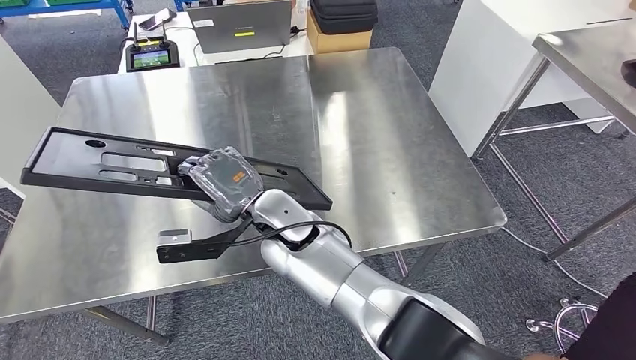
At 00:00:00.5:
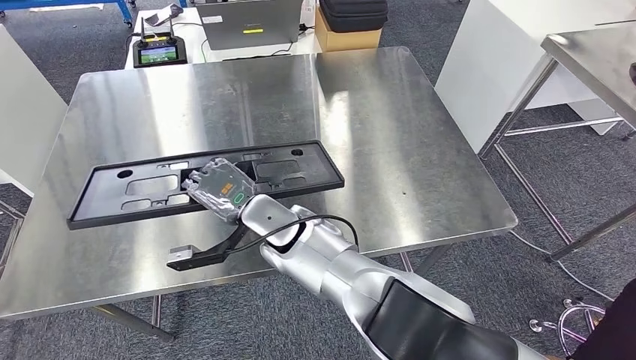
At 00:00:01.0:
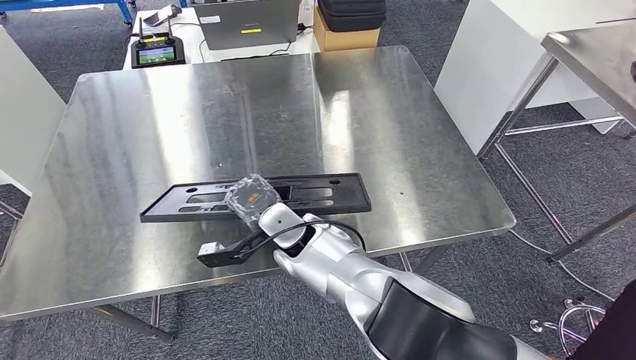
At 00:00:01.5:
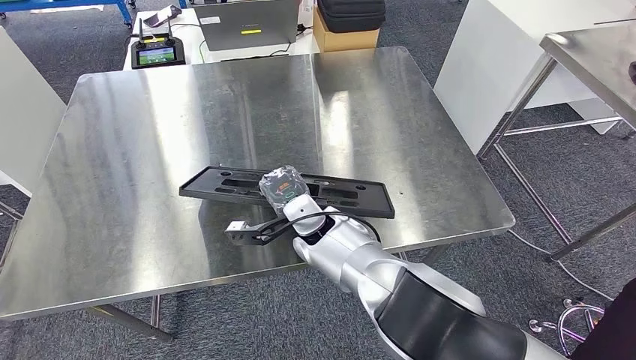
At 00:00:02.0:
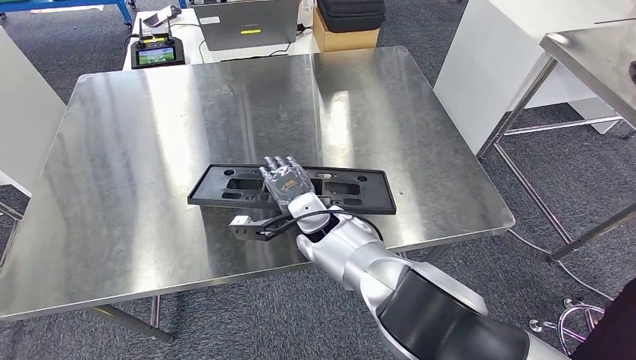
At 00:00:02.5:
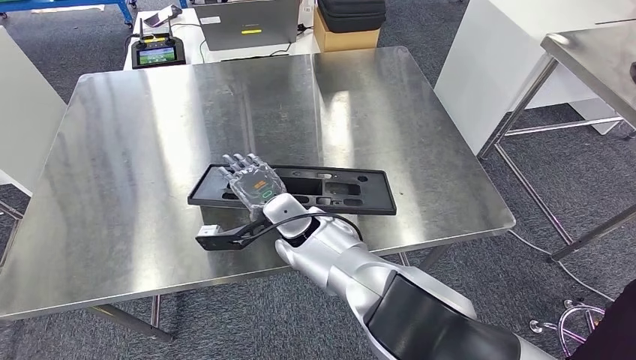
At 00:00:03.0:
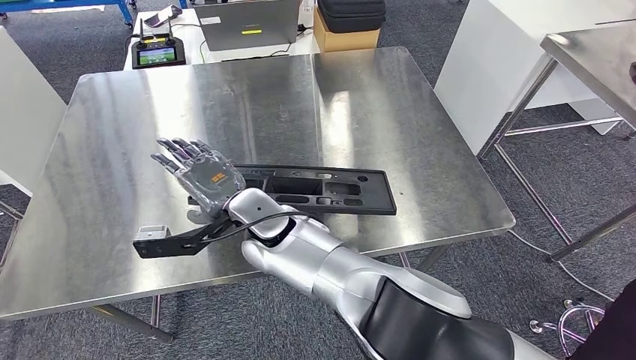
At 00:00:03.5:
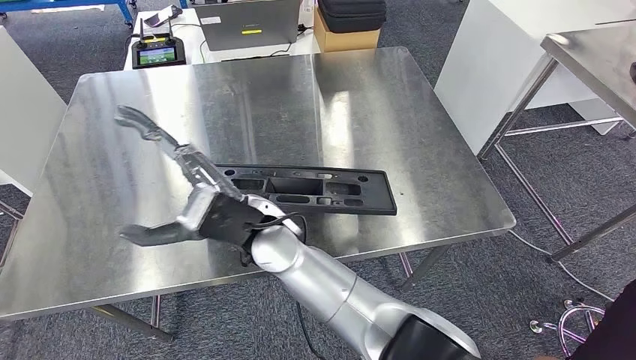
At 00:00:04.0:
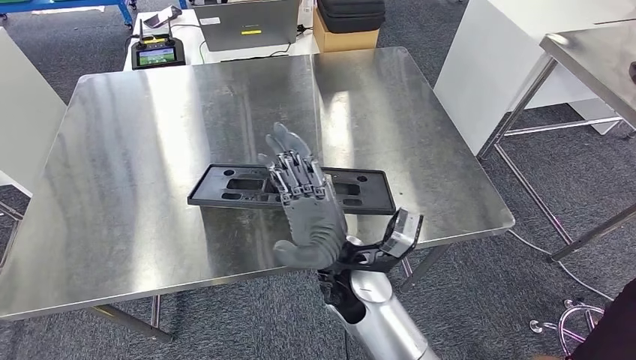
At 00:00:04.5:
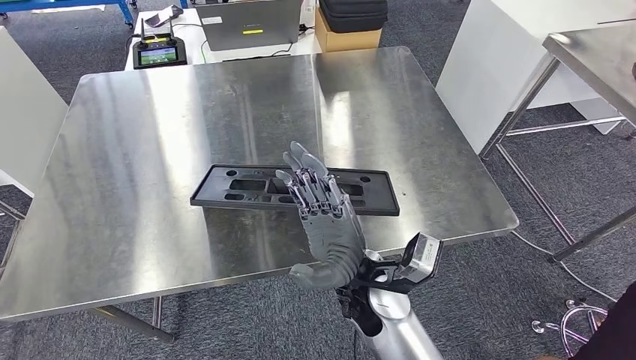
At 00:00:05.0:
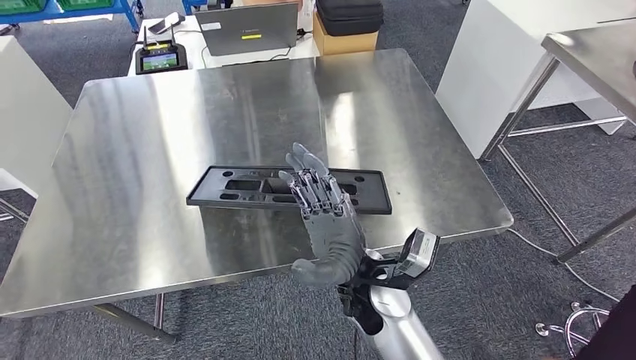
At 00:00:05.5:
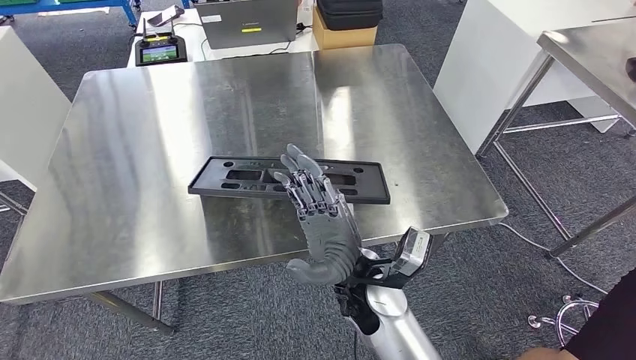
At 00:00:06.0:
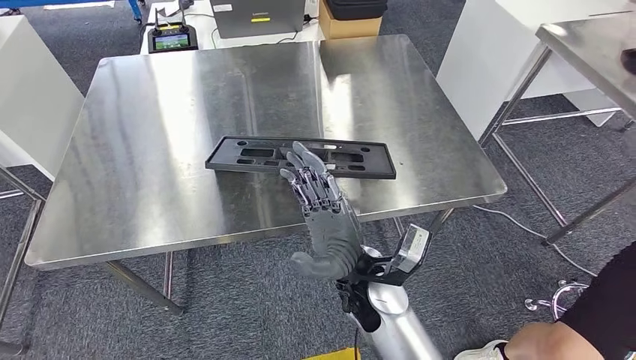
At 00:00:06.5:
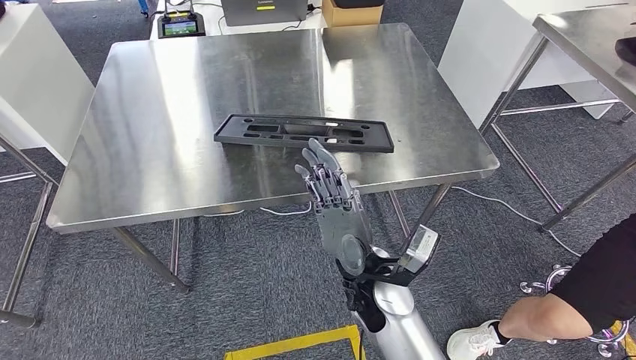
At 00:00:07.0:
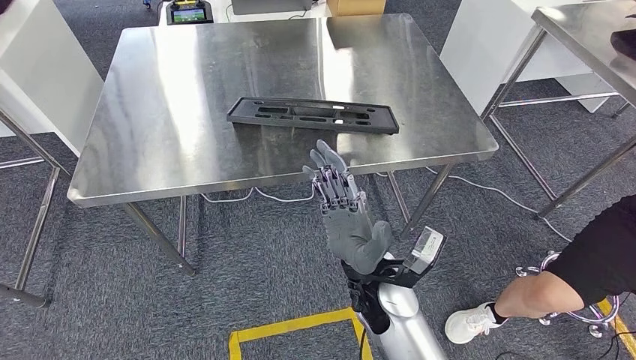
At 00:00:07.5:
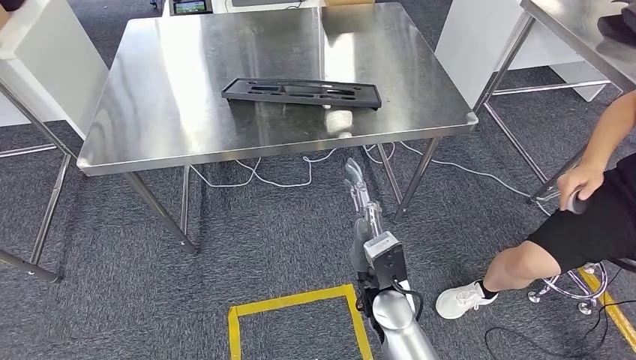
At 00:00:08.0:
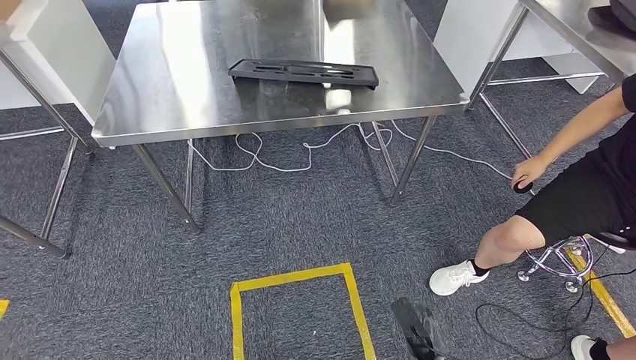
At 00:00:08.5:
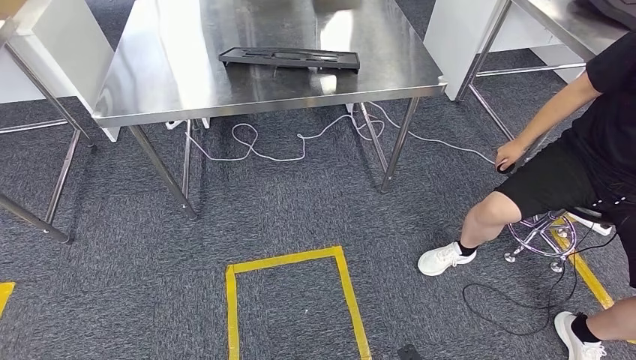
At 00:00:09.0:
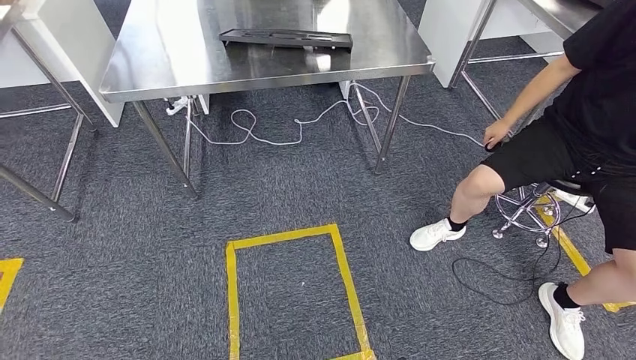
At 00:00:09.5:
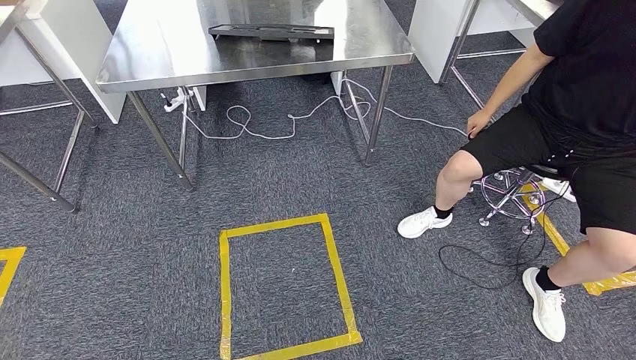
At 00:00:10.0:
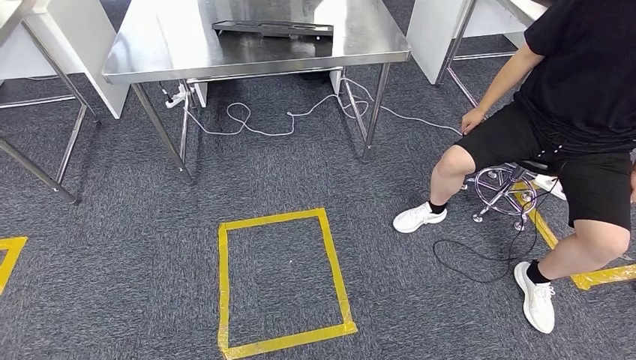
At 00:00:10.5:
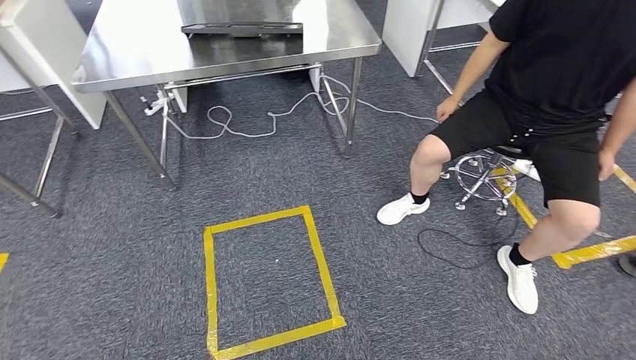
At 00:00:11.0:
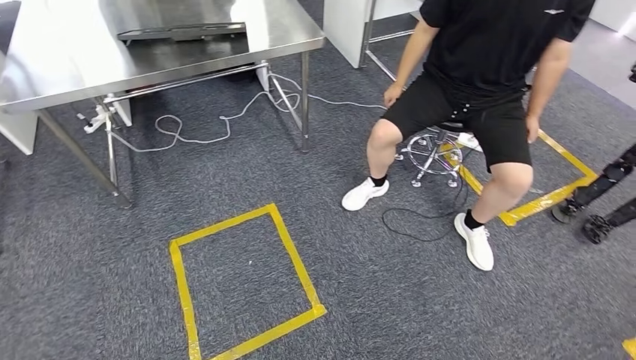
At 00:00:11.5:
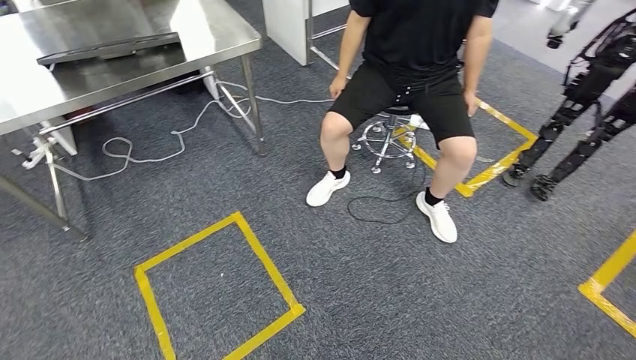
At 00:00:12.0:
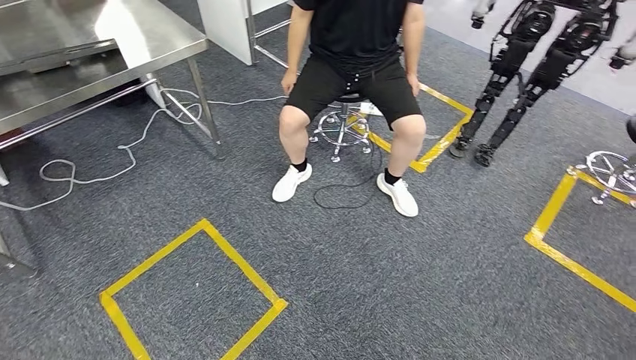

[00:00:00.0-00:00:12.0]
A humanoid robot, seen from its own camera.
Step, 00:00:00.0 to 00:00:09.0: Insert the large material into the corresponding slot on the workbench.
00:00:02.0 to 00:00:04.0: The right hand heads backward, covering approximately 10 cm.

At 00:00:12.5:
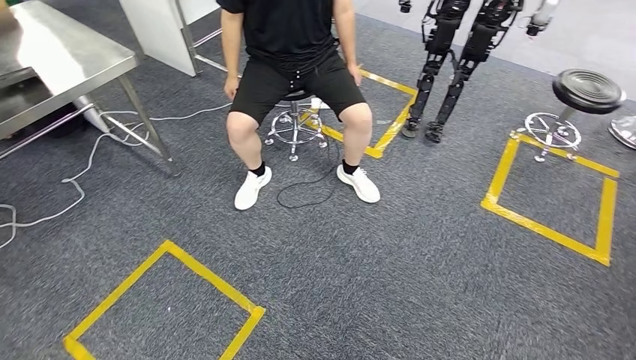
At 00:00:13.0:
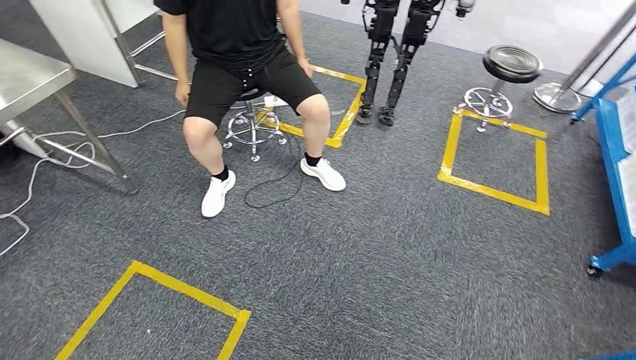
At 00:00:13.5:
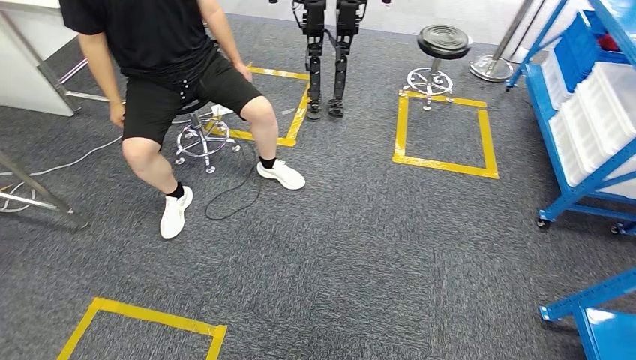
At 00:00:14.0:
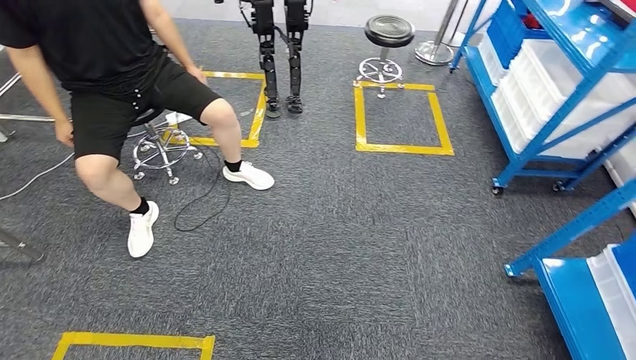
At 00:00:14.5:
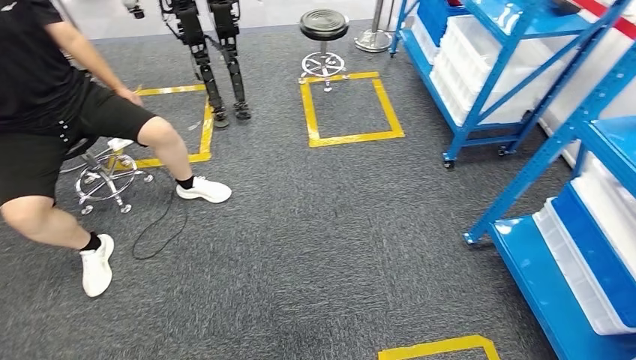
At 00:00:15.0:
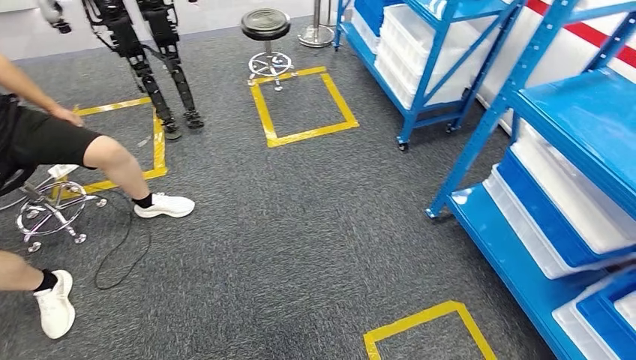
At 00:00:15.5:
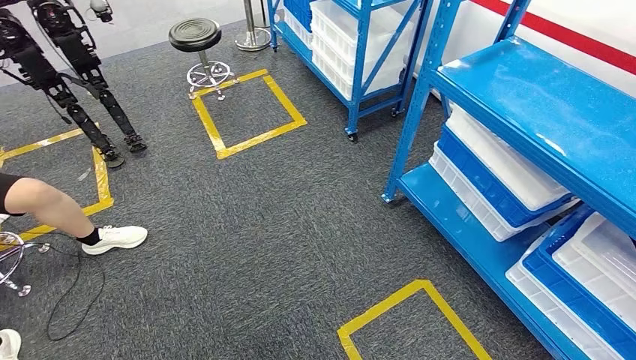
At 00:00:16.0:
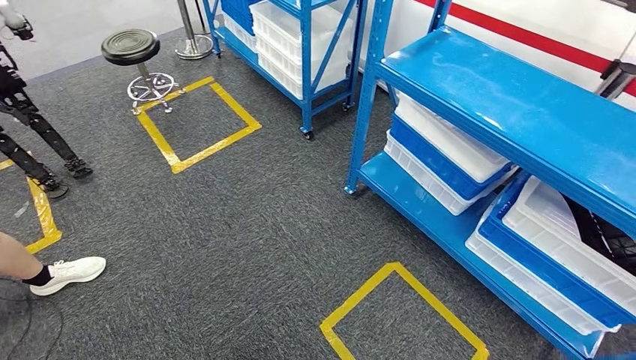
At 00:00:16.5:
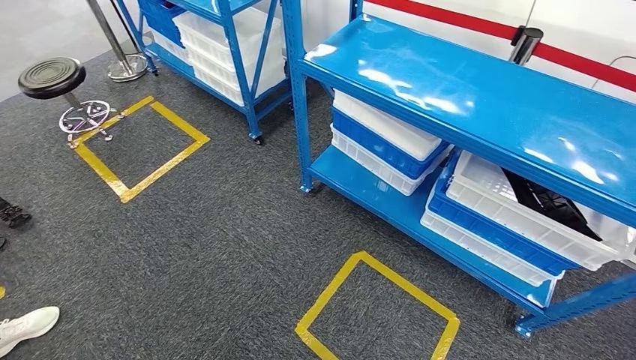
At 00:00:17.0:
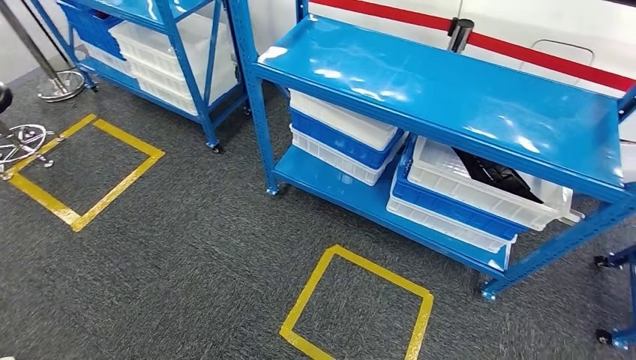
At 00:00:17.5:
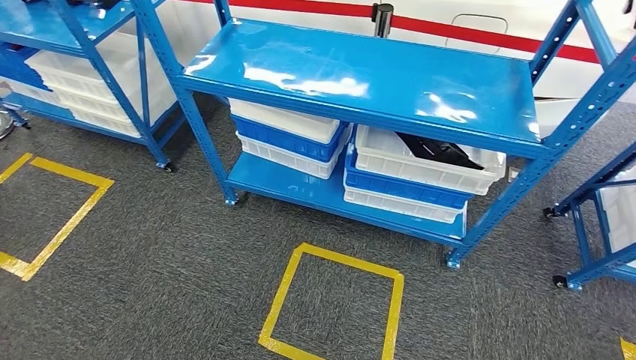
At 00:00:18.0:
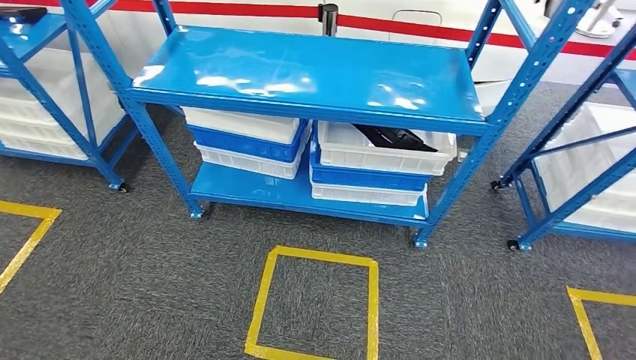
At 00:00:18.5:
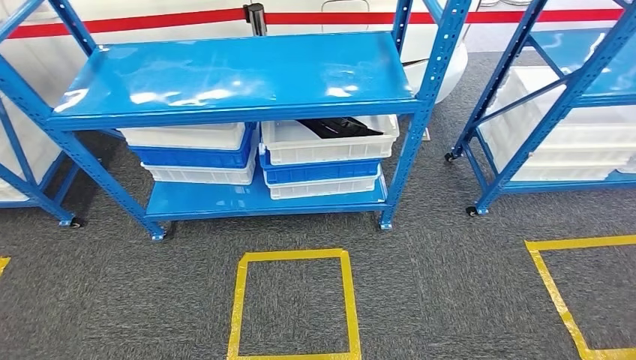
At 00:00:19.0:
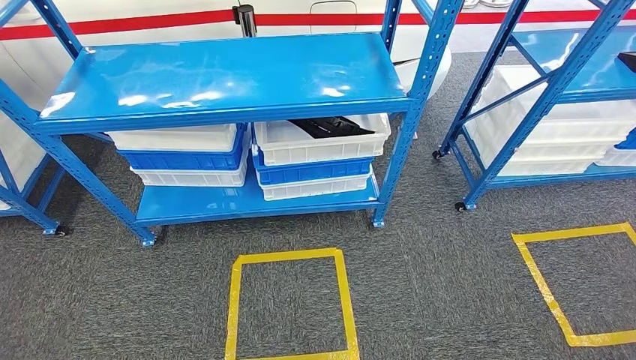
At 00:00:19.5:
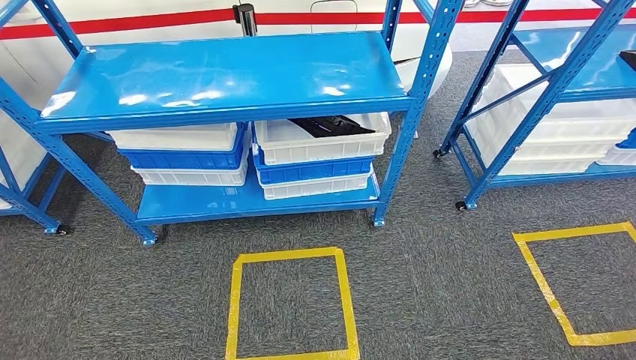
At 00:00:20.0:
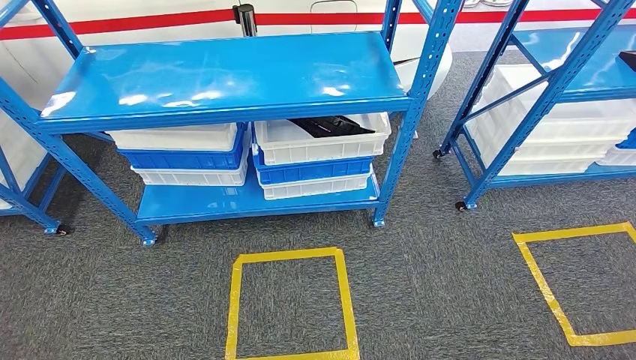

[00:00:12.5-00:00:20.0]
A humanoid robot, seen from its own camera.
Step, 00:00:12.5 to 00:00:20.0: Return to the initial position at the shelf.

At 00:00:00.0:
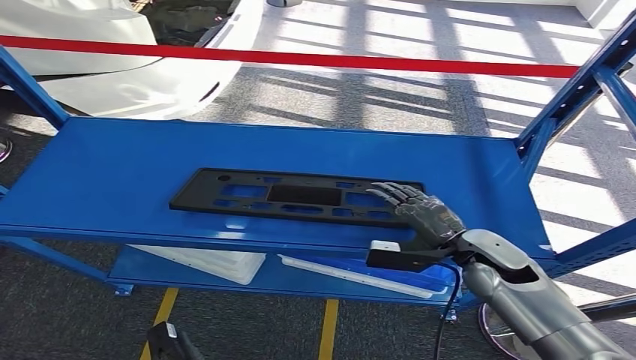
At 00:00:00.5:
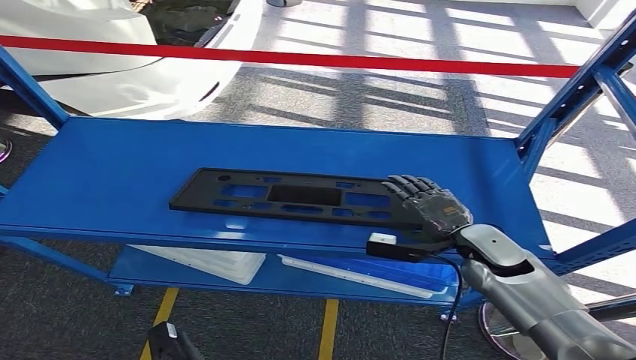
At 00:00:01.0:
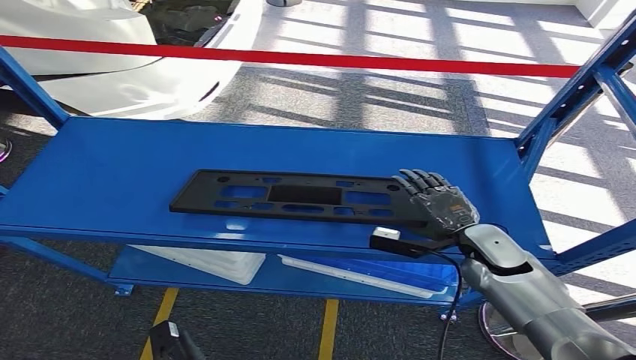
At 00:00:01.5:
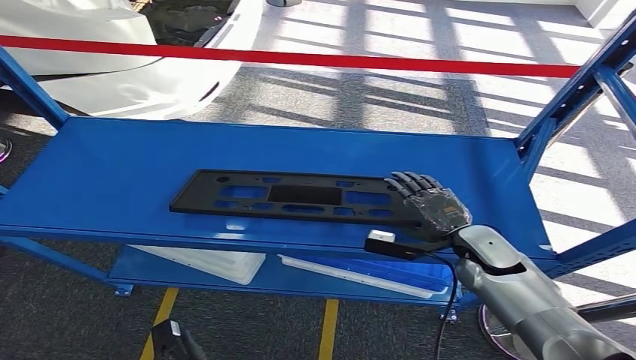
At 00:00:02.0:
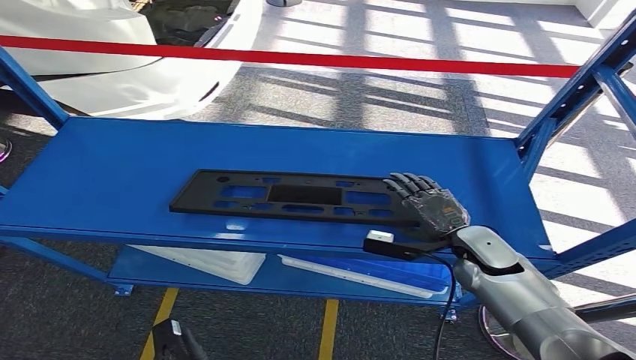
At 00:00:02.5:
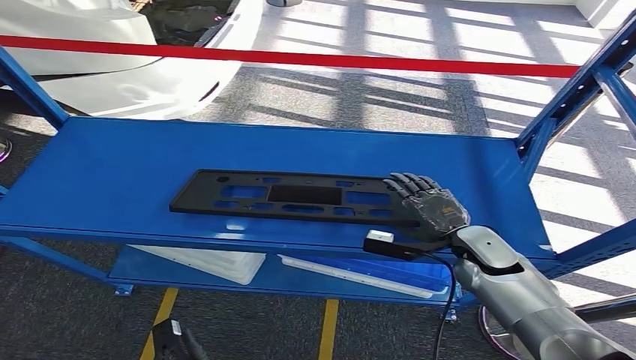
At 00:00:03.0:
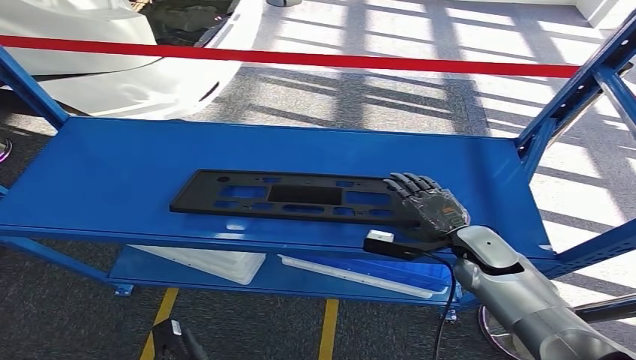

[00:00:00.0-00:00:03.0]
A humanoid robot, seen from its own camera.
00:00:00.0 to 00:00:01.5: The hands move only a little.
00:00:01.5 to 00:00:03.0: Both hands stay about where they are.
